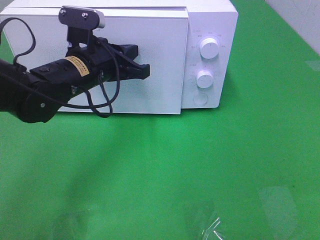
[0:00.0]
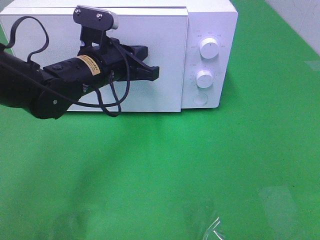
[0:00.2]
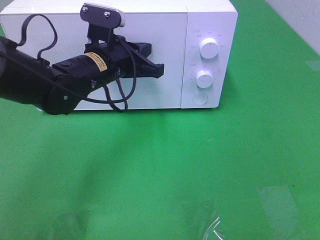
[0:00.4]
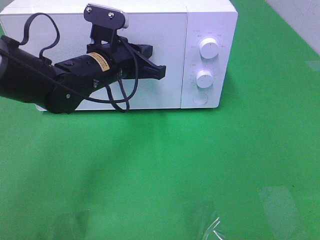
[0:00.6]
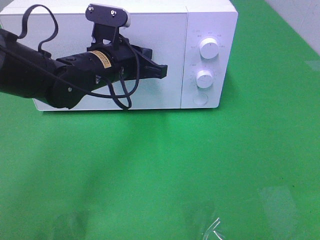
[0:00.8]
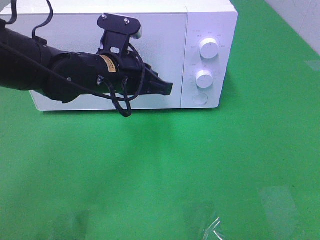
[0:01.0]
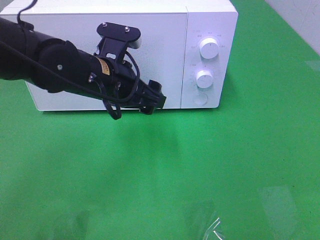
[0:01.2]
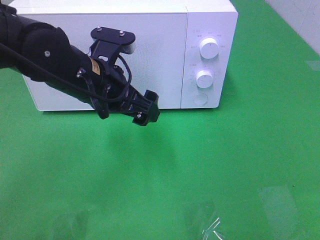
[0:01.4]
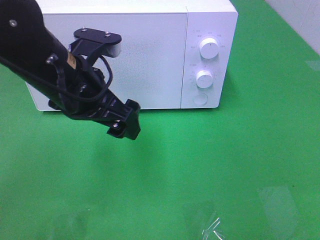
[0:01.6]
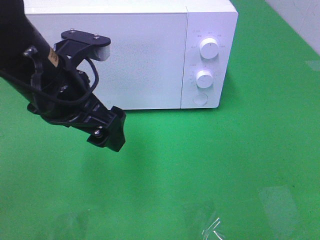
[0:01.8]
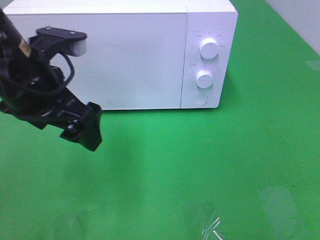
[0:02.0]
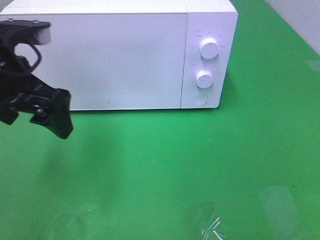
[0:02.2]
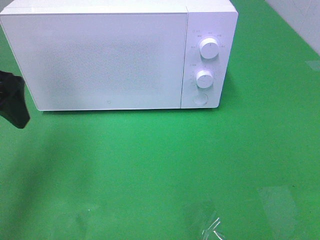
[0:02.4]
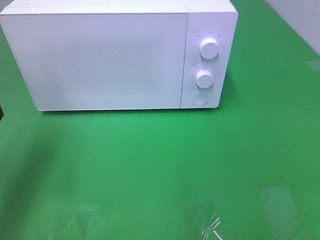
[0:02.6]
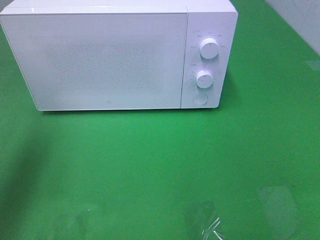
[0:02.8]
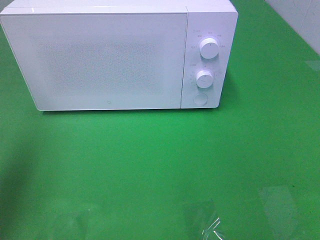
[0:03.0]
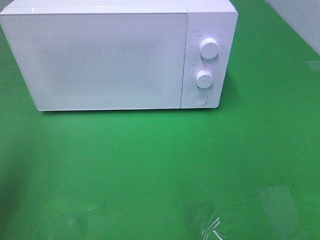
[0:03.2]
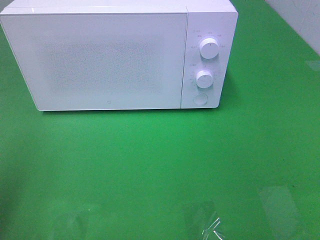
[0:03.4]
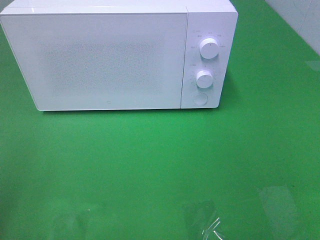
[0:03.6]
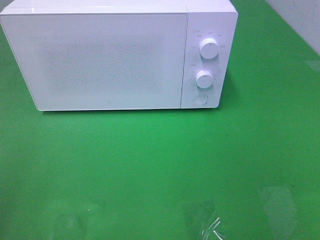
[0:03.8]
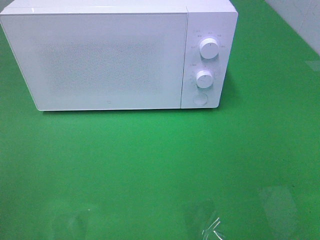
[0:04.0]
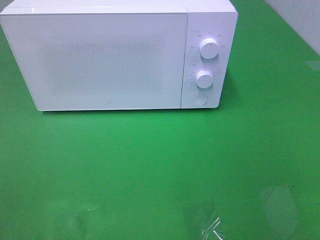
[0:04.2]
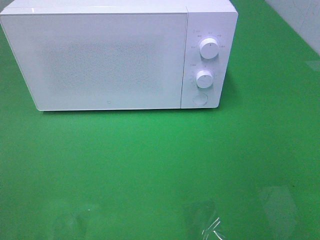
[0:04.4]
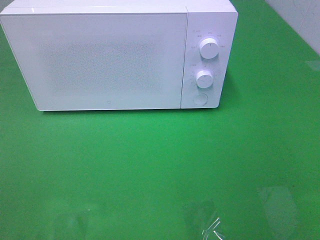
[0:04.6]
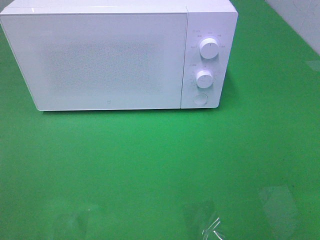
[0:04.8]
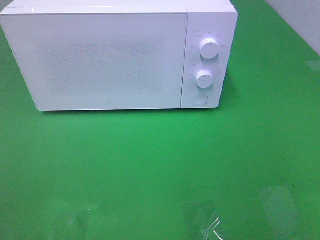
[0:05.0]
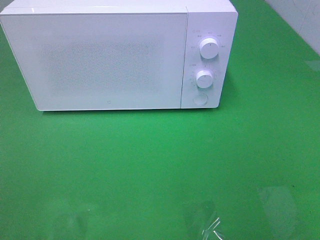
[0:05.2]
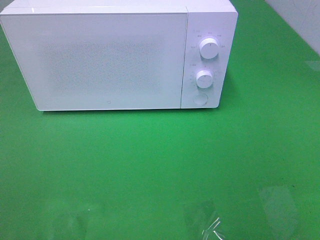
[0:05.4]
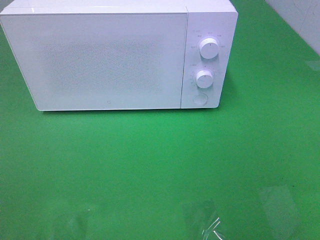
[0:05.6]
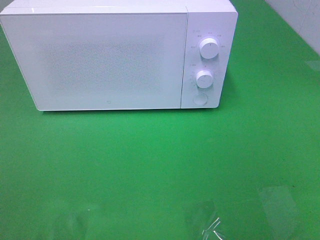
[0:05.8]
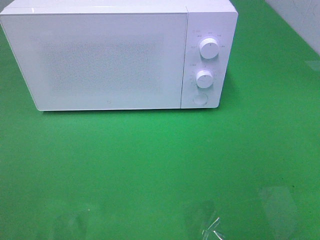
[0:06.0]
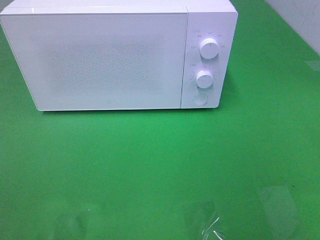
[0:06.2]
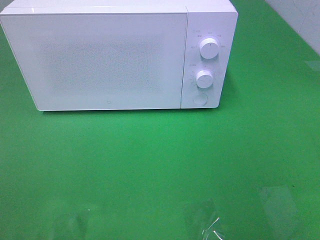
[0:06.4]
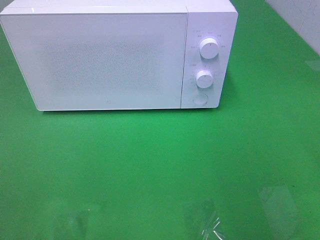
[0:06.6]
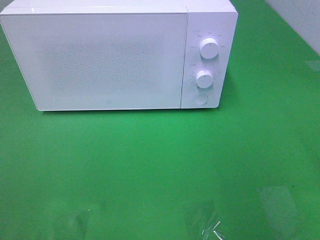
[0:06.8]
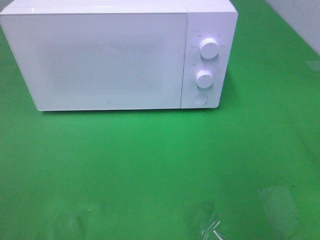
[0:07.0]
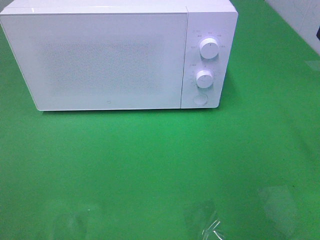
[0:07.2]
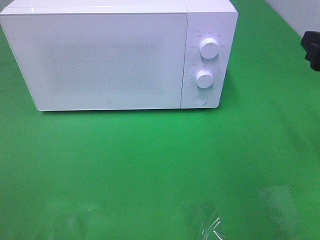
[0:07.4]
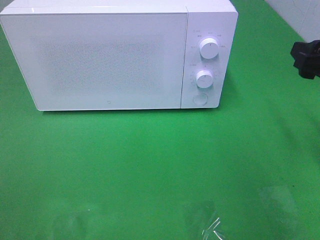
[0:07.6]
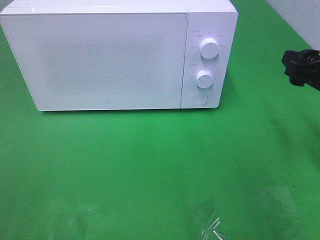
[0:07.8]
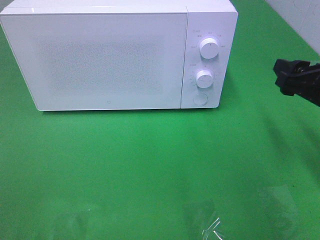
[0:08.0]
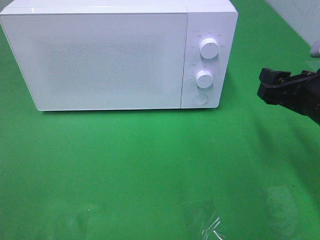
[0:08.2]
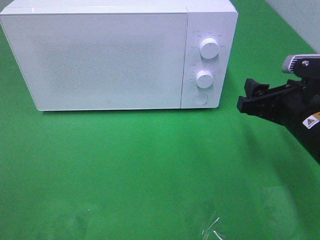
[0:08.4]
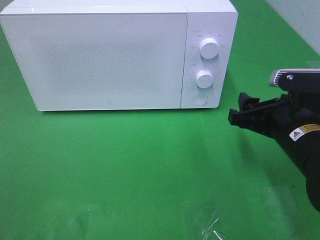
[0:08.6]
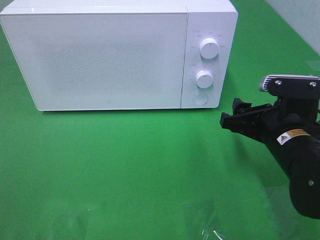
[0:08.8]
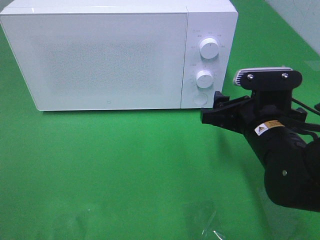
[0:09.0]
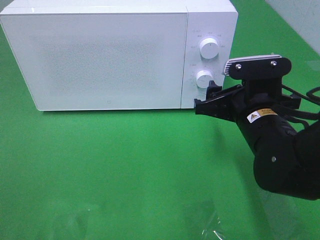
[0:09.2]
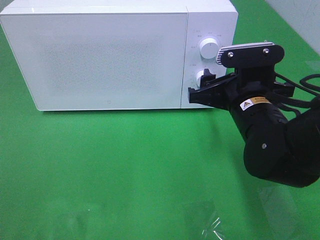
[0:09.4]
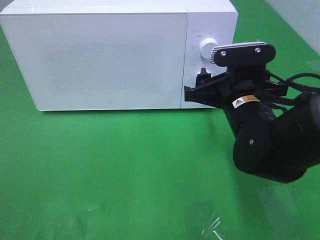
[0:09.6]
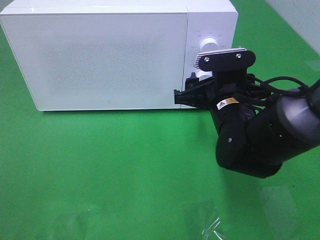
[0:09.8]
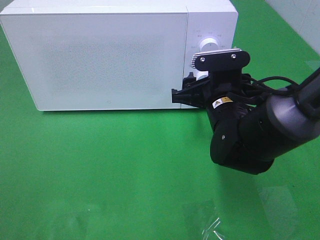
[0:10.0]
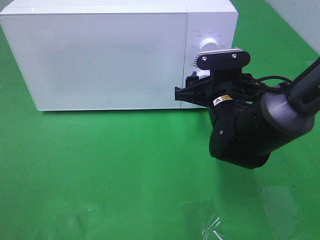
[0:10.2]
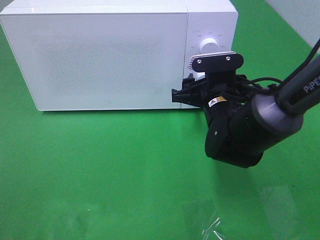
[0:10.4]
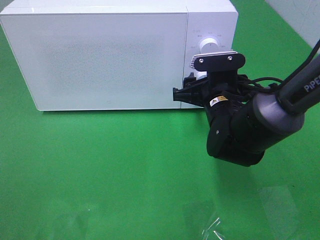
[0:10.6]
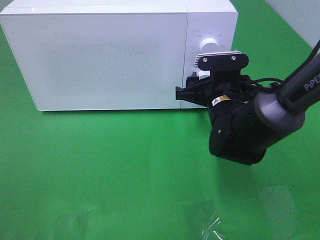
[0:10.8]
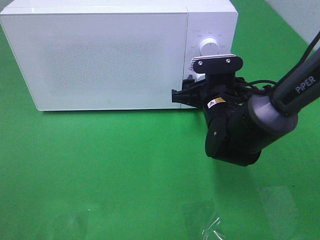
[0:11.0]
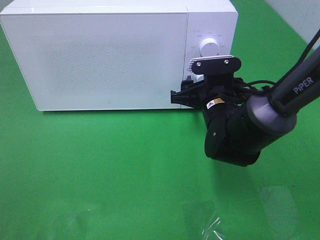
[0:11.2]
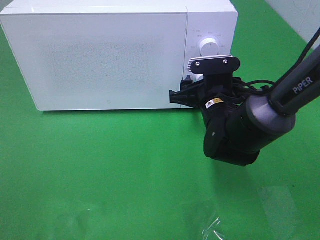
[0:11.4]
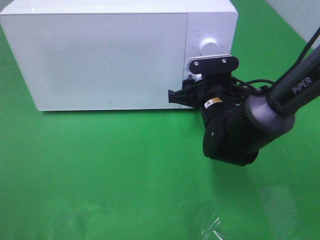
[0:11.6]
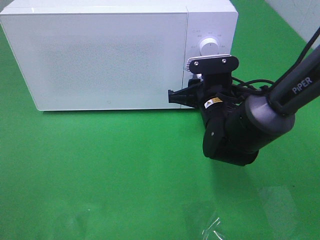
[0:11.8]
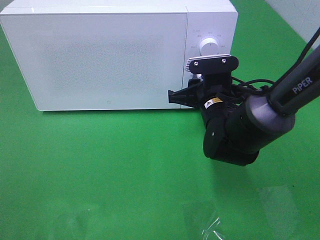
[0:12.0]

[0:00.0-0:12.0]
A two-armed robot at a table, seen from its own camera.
Task of the whole recording: Heat the burger.
0:00.0 to 0:01.6: The left gripper goes roughly 5 cm backward, and opens.
0:01.6 to 0:03.0: The left gripper is displaced to the left by approximately 20 cm.
0:03.0 to 0:04.4: The left gripper moves backward, roughly 20 cm.
0:06.0 to 0:07.6: The right gripper shifts about 20 cm forward and downward.
0:07.6 to 0:09.0: The right gripper travels to the left and downward by about 15 cm.
0:09.0 to 0:10.4: The right gripper goes about 10 cm forward.
0:10.4 to 0:12.0: The right gripper closes.

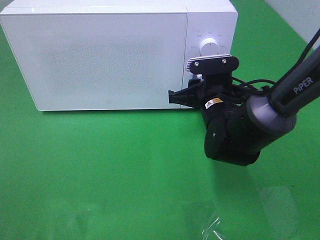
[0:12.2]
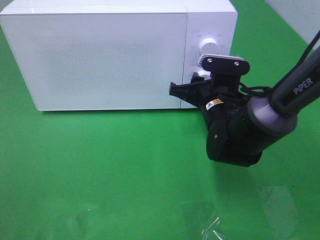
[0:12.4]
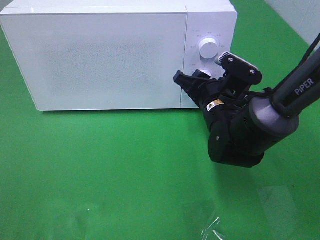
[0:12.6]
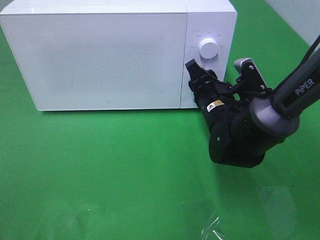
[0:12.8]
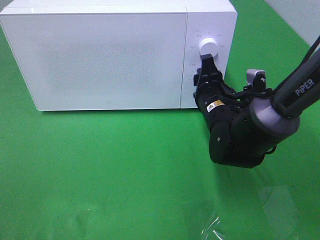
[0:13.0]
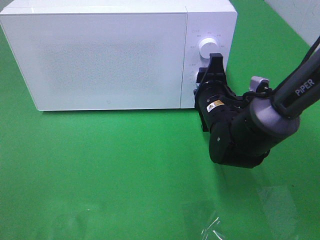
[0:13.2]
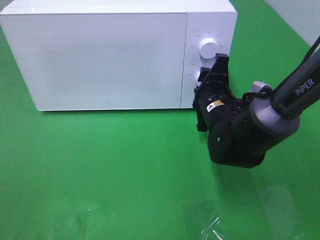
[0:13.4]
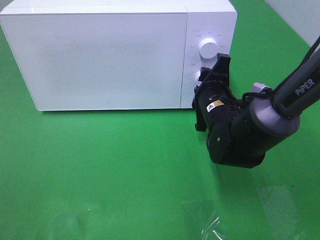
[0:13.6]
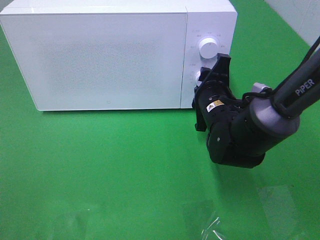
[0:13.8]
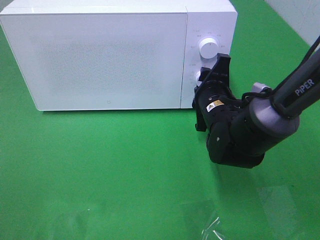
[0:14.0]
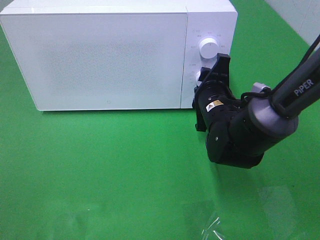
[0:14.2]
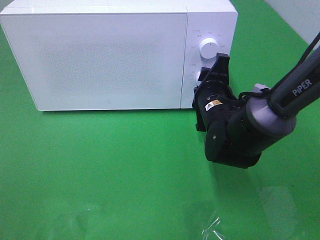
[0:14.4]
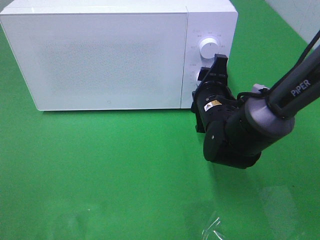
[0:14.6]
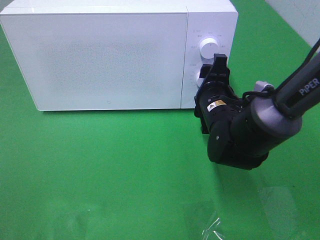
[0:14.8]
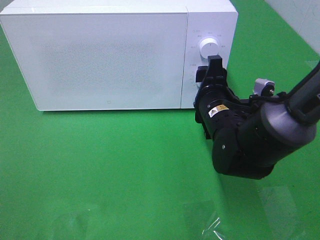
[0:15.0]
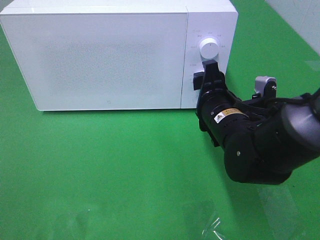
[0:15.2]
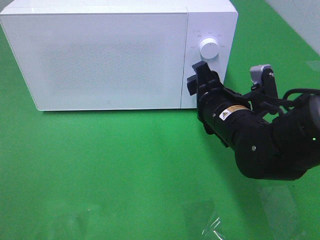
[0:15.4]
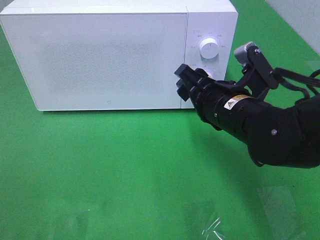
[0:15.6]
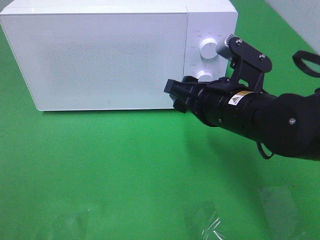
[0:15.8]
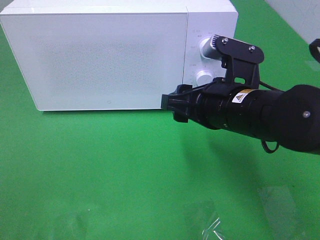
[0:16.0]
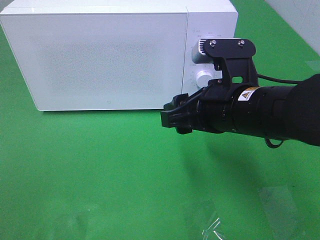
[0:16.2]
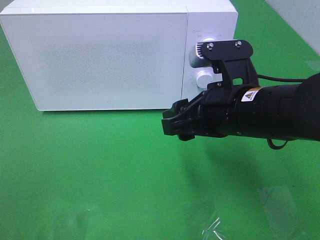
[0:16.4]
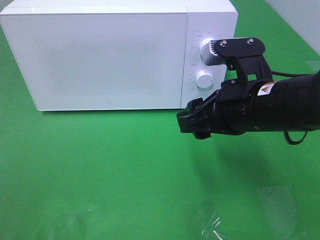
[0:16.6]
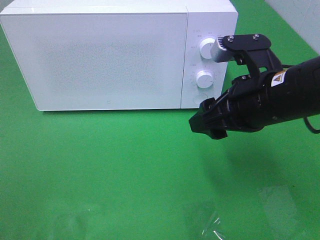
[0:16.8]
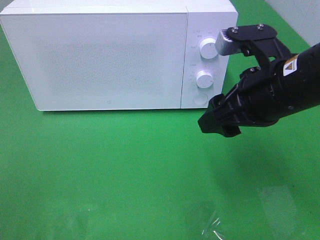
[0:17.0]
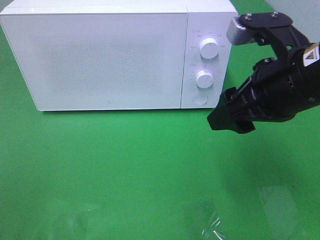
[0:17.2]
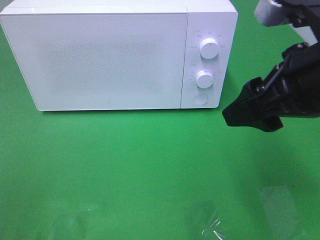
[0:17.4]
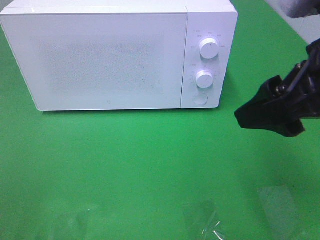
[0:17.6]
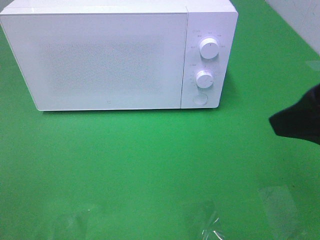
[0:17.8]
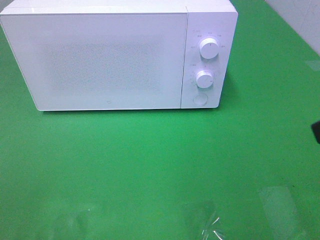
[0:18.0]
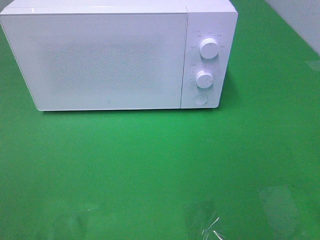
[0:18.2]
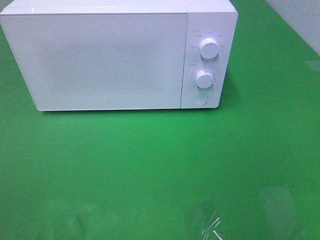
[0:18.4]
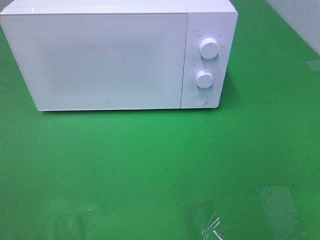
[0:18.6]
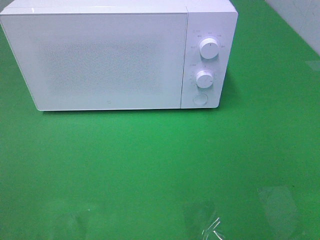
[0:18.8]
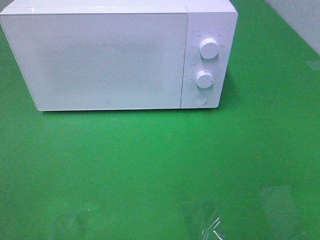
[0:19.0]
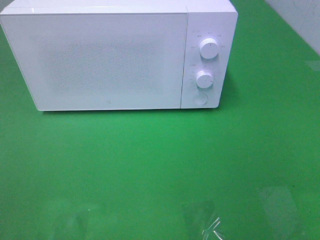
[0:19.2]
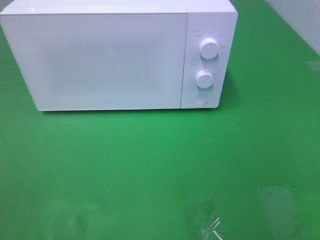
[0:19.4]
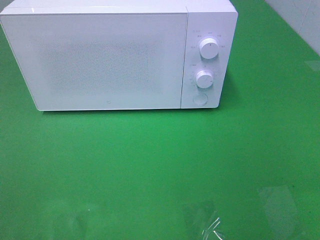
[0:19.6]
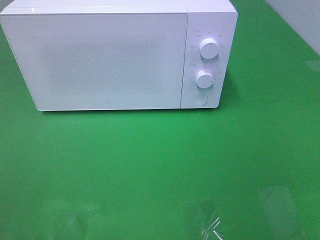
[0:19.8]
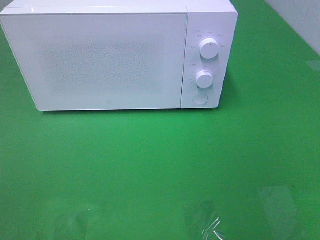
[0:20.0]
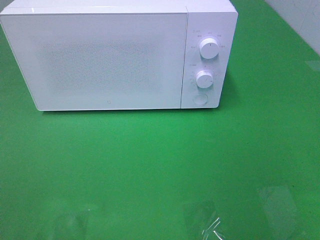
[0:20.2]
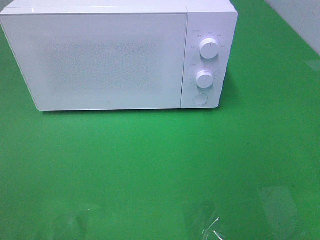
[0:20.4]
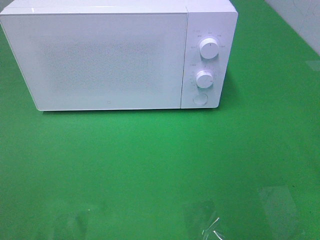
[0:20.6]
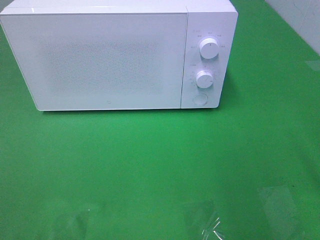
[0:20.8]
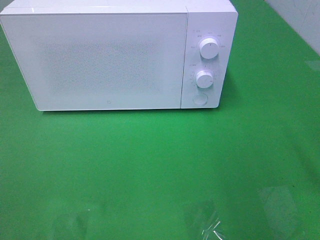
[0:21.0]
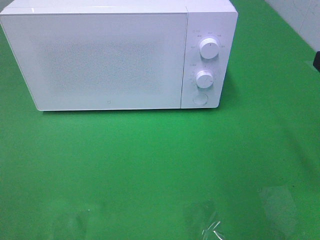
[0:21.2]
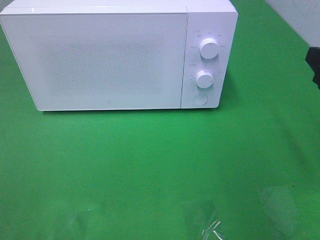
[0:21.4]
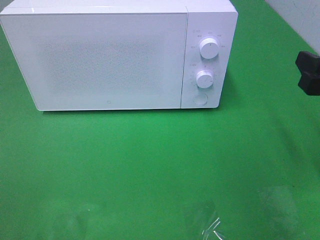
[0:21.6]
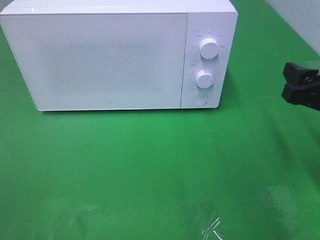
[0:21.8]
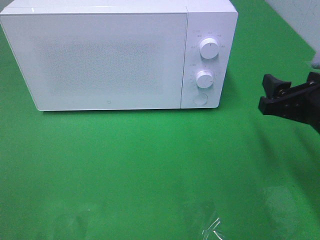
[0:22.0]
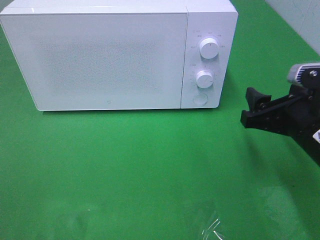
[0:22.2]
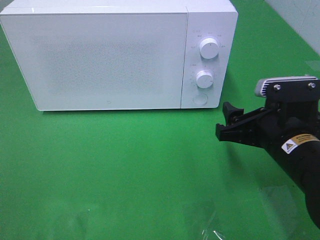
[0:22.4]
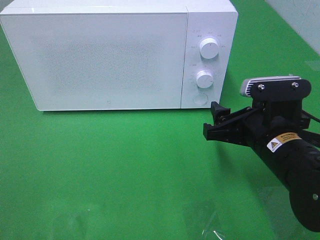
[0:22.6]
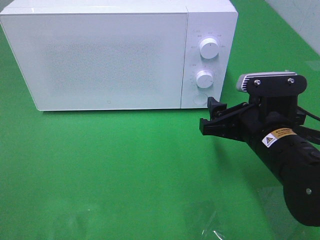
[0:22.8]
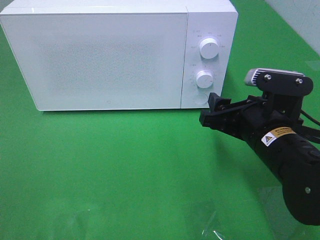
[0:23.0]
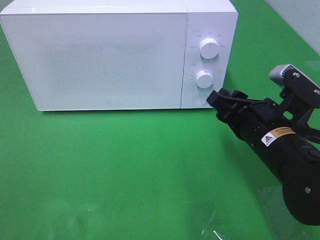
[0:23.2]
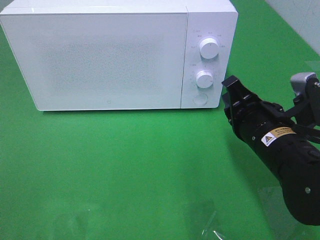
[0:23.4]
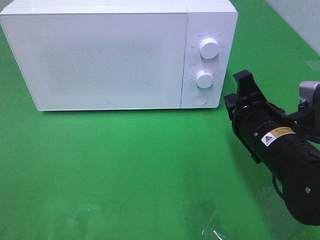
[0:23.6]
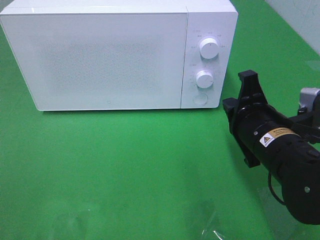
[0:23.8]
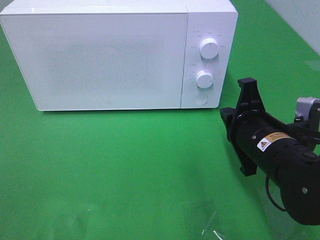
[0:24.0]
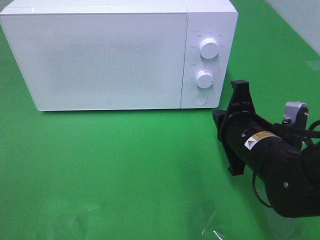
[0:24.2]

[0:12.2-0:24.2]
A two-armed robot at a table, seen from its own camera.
Task of the whole recording: Heat the burger.
Step, 0:12.2 to 0:15.0: Right hand: twist timer button.
0:13.8 to 0:15.2: The right gripper changes place by approximately 5 cm.
0:15.2 to 0:16.6: The right gripper moves upward, about 10 cm.
0:16.6 to 0:18.2: The right gripper is displaced backward, to the right and upward by some 20 cm.
0:21.2 to 0:22.6: The right gripper moves downward and to the left, about 15 cm.
0:22.6 to 0:24.2: The right gripper closes.
